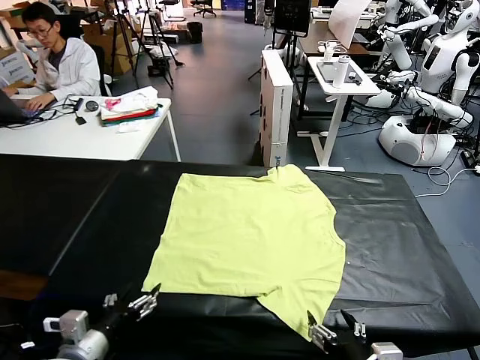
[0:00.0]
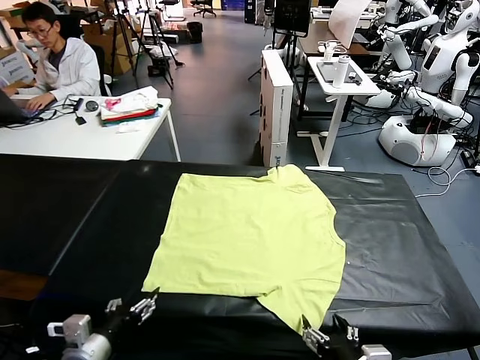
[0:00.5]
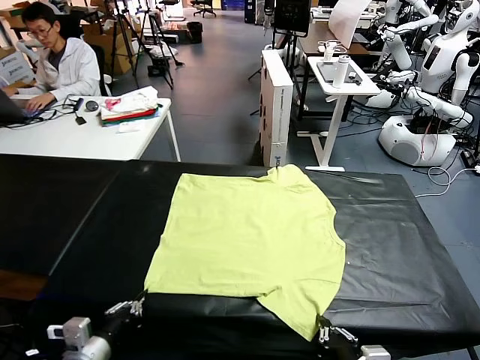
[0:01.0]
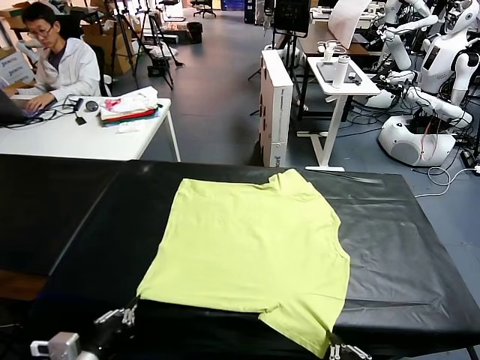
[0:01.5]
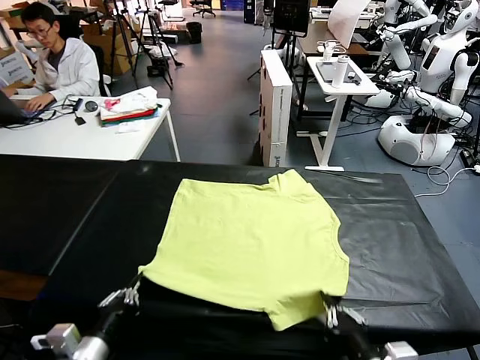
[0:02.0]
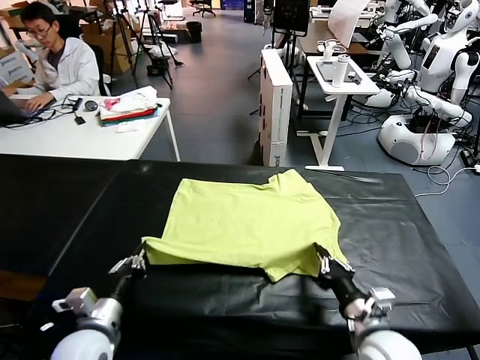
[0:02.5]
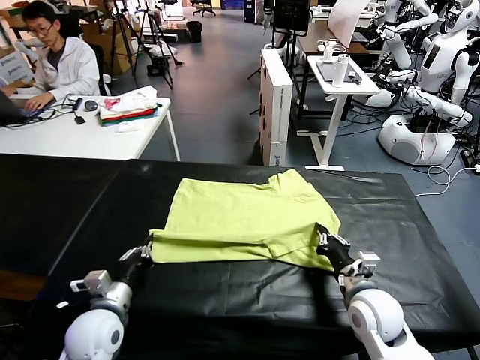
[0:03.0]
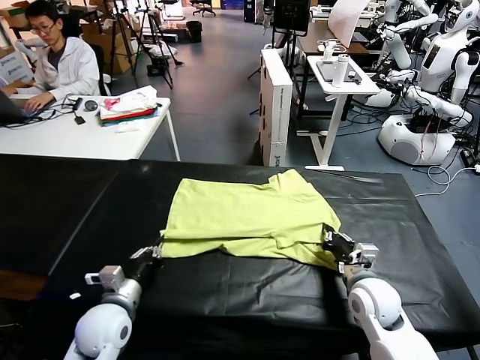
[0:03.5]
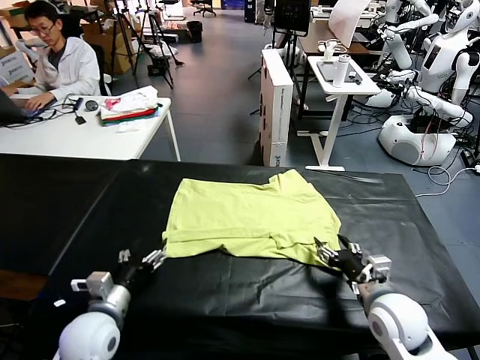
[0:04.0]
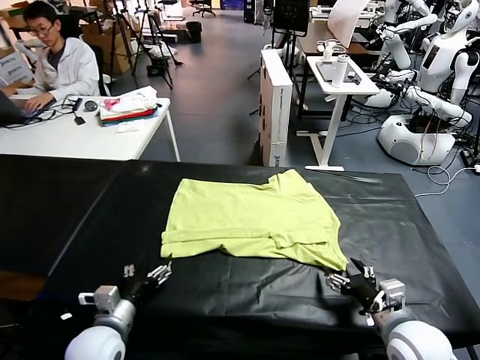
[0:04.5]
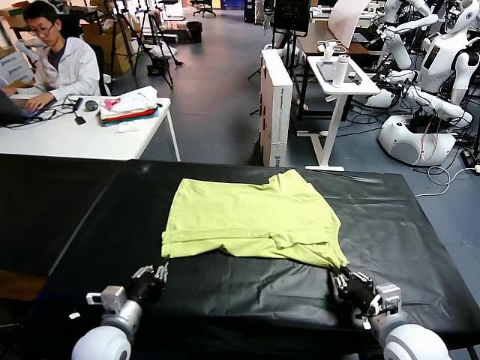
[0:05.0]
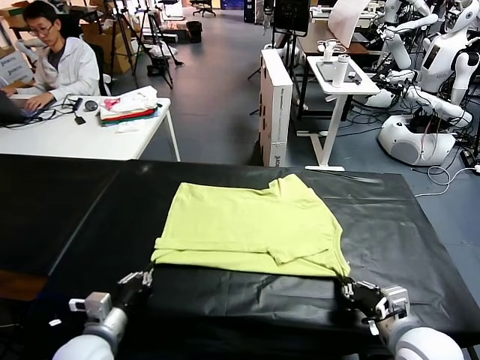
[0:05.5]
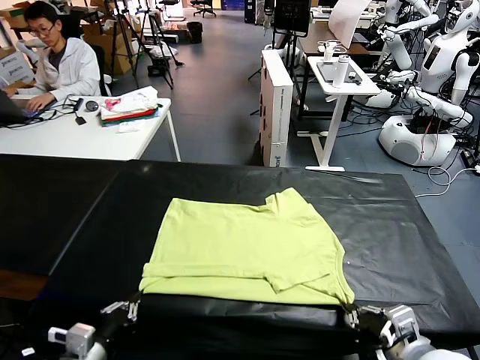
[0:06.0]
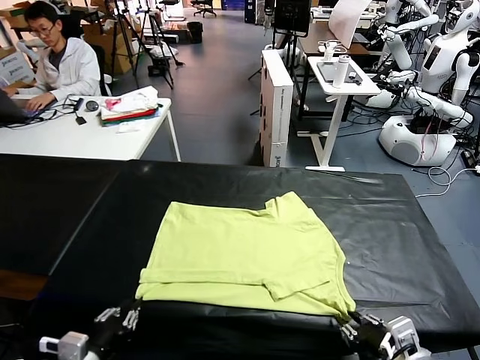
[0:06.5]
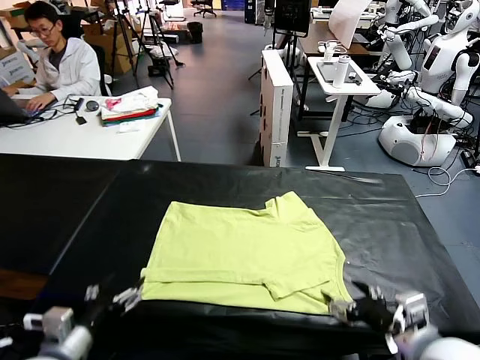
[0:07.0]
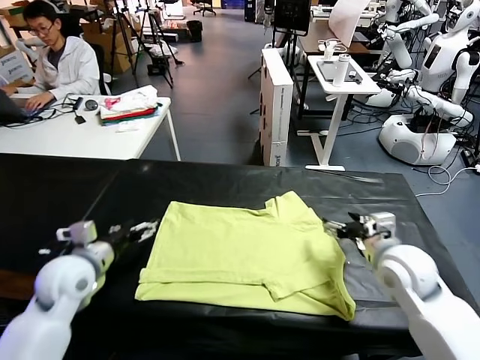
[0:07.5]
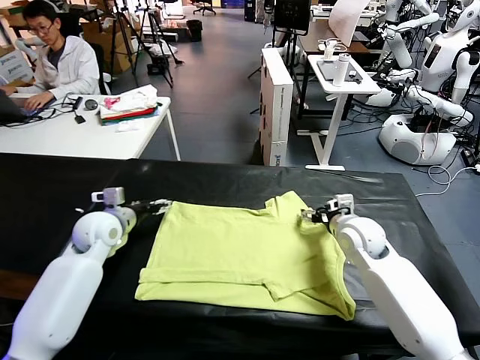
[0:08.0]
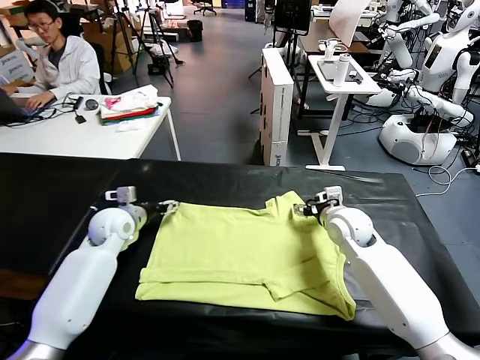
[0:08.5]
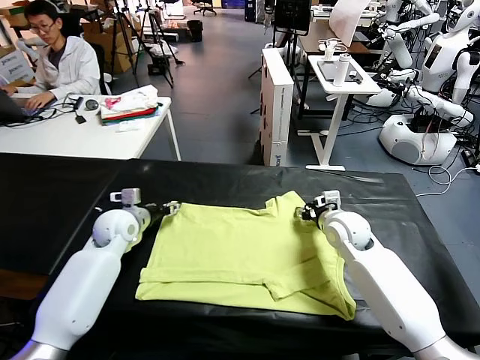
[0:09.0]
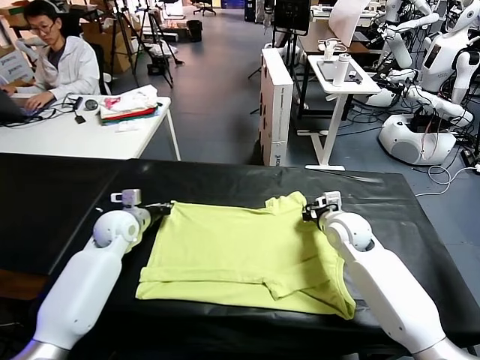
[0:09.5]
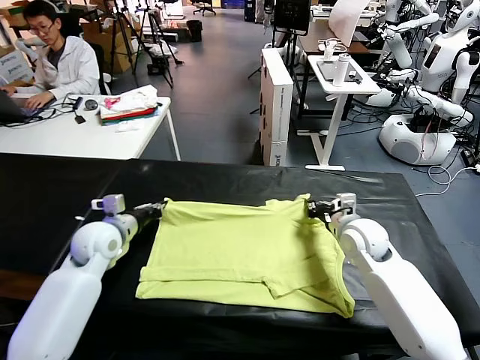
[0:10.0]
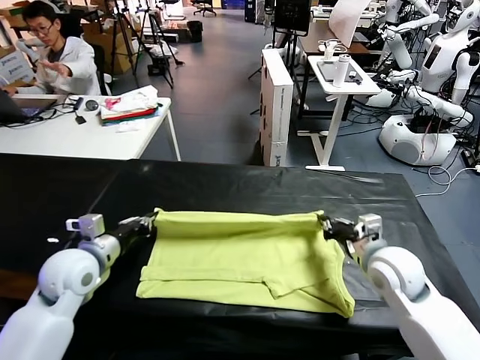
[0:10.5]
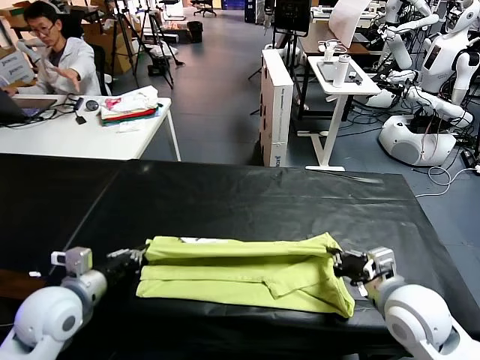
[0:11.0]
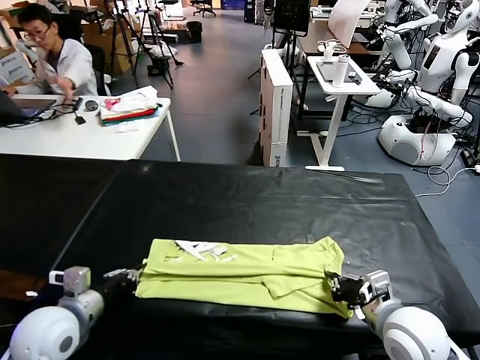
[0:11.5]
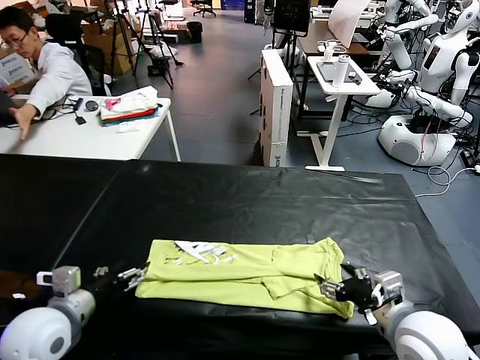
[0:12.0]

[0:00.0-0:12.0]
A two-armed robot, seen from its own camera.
Task of the whole recording: fold and organize the clothes.
Step, 0:00.0 to 0:01.0: use both grippers simultaneously to clamp the lower edge of the clothing fabric.
Step, 0:01.5 to 0:04.0: use both grippers to drag the lower edge of the fabric forward and fold it over the upper edge.
Step, 0:04.5 to 0:06.5: Drag the clothes downward with both gripper.
Step, 0:07.0 to 0:09.0: use both grippers simultaneously to clamp the upper edge of the clothing fabric.
Step, 0:10.0 to 0:11.5: use both grippers to drag the upper edge of the fabric backward and fold it over the lower edge.
0:02.0 to 0:04.0: The right gripper moves forward and to the right, about 10 cm, and opens and closes again. Meanwhile the left gripper moves forward, approximately 10 cm, and opens, then closes again.
0:04.0 to 0:06.0: The right gripper shifts approximately 10 cm backward and upward, and opens up, while the left gripper goes approximately 10 cm backward, and opens up.
0:06.0 to 0:08.0: The grippers both shift forward by roughly 30 cm. The left gripper closes and opens again. The right gripper closes its fingers.
0:08.0 to 0:10.0: The left gripper closes, then opens again, while the right gripper travels backward by about 10 cm, and opens, then closes again.
0:10.0 to 0:12.0: The right gripper goes about 5 cm backward, and opens. The left gripper goes approximately 15 cm backward, and closes up.

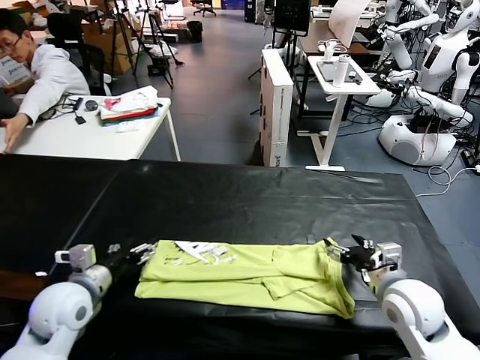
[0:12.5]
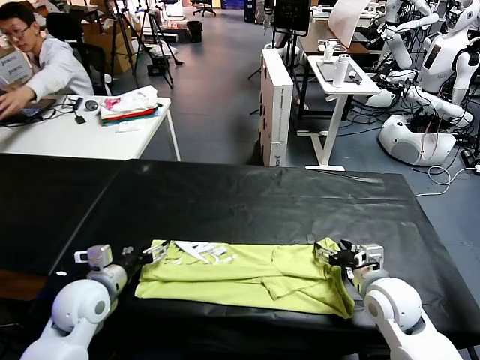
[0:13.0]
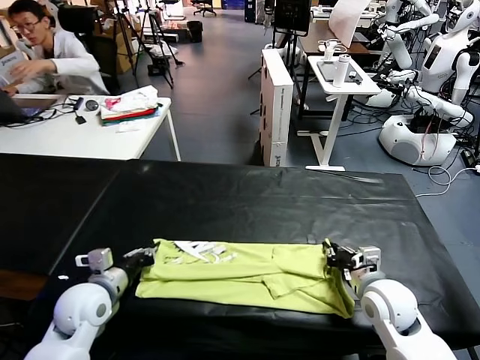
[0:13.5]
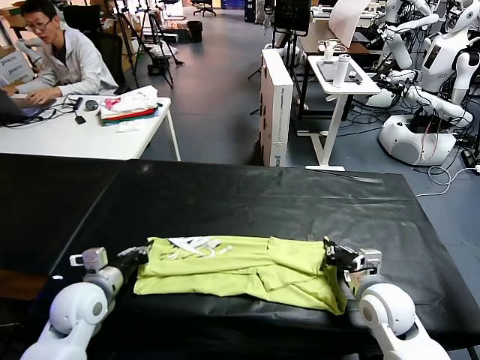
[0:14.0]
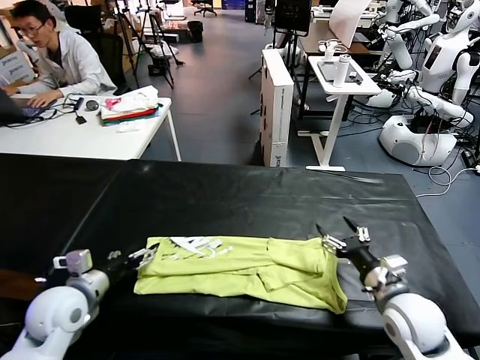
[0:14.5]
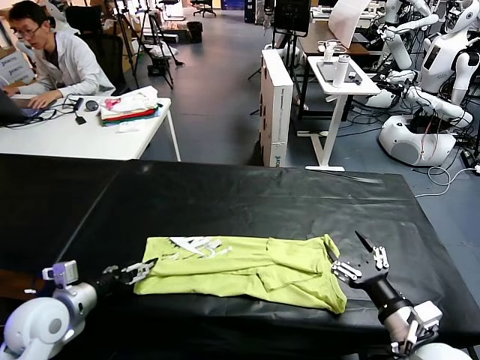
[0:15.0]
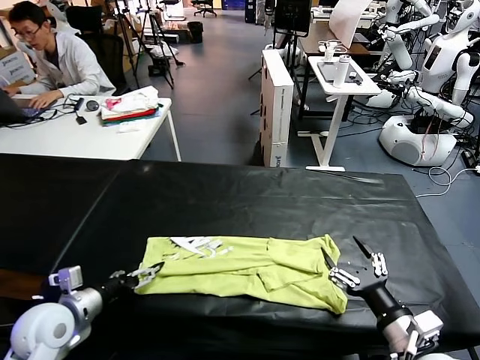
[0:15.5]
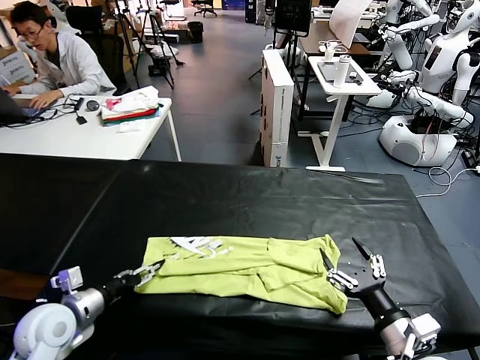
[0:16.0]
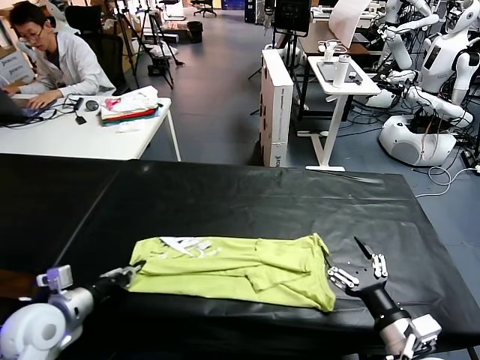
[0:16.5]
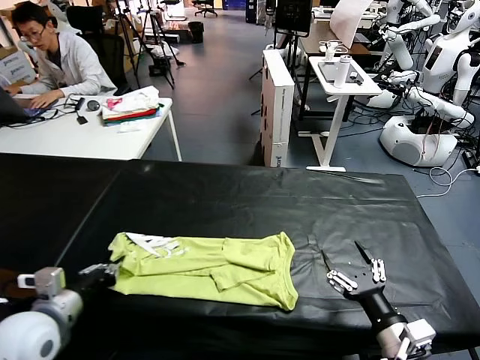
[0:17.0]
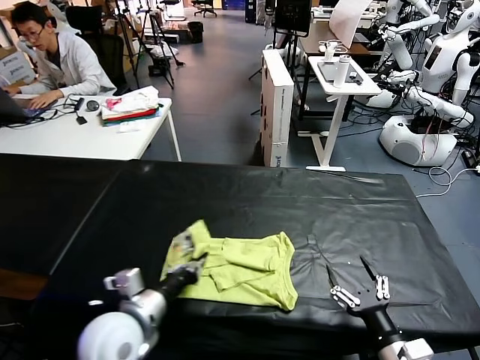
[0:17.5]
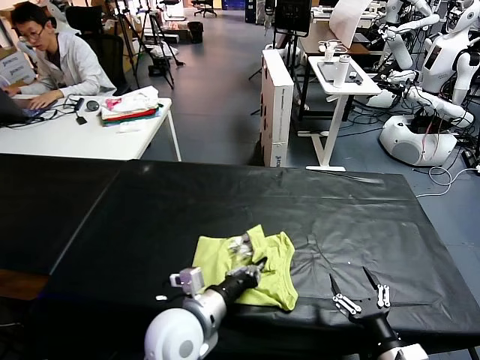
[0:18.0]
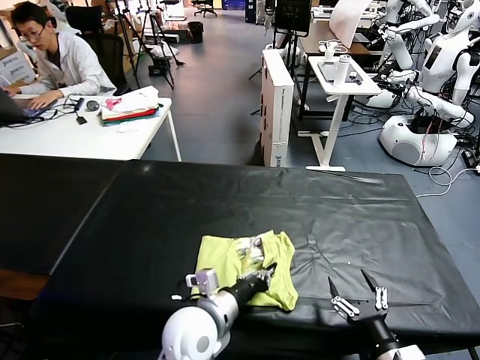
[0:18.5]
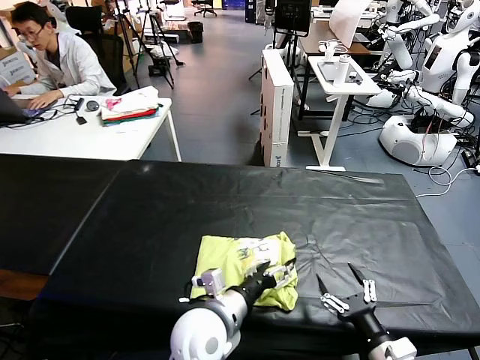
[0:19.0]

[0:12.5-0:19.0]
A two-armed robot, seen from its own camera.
Task of the whole recording: fold and organize the clothes.
Step, 0:12.5 to 0:16.0: use the left gripper to clamp the left edge of the fabric.
Step, 0:16.5 to 0:19.0: use the left gripper to drag the left edge of the fabric to the left and folds it over the right edge.
0:12.5 to 0:14.5: The left gripper opens its fingers; the right gripper heads backward, covering approximately 10 cm.
0:14.5 to 0:17.0: The two grippers go some 5 cm backward. The left gripper closes its fingers. The right gripper closes, then opens again.
0:17.0 to 0:19.0: The left gripper goes approximately 25 cm to the right, and opens.
